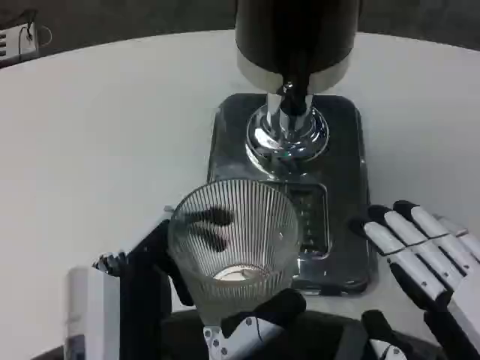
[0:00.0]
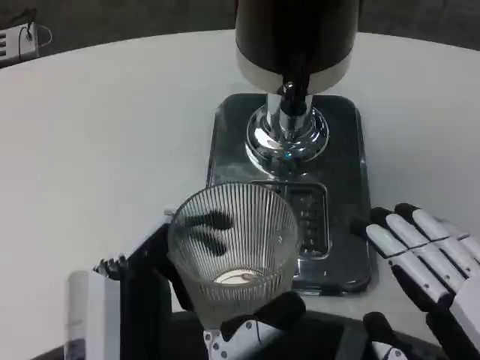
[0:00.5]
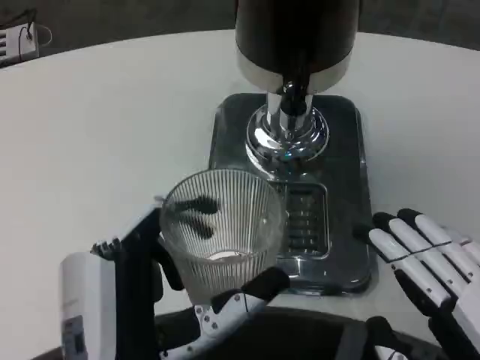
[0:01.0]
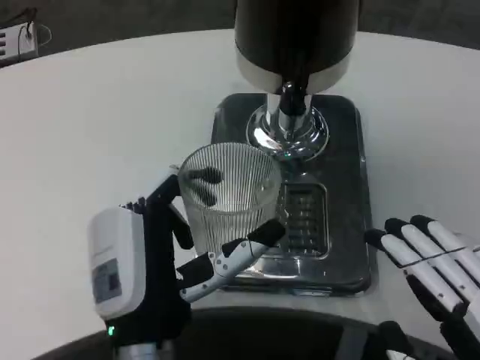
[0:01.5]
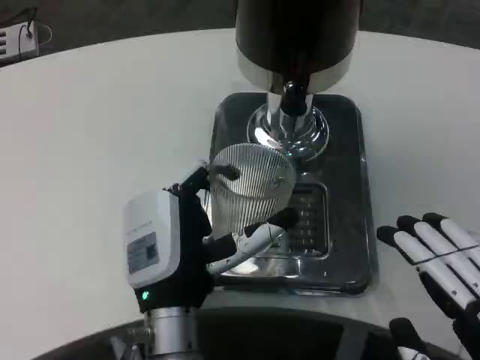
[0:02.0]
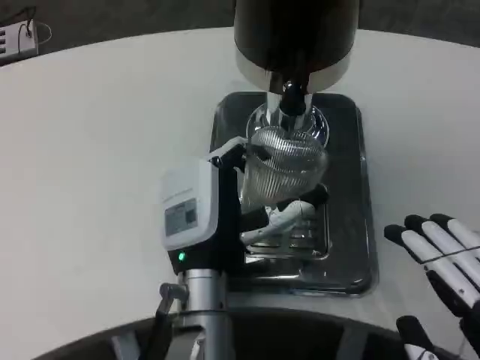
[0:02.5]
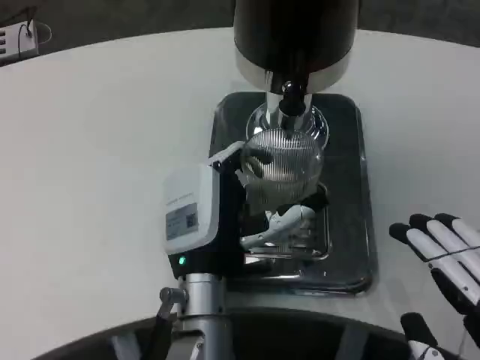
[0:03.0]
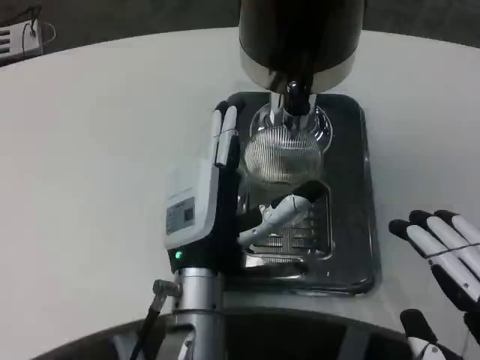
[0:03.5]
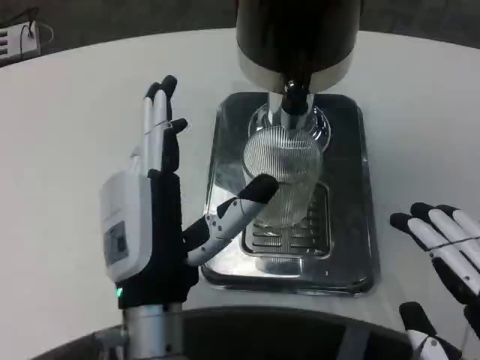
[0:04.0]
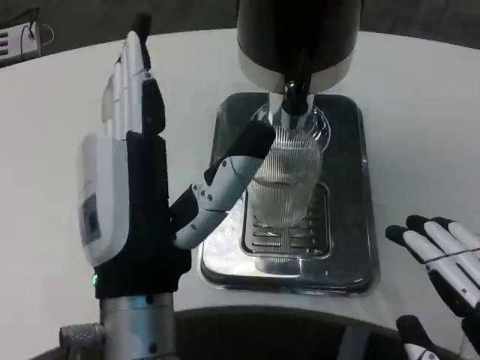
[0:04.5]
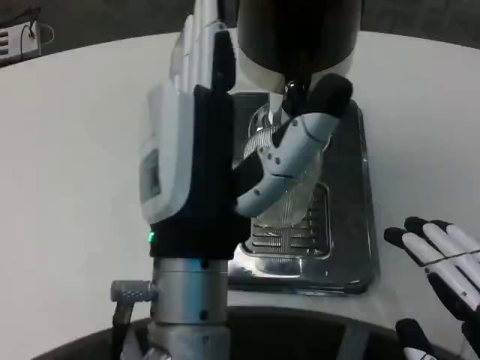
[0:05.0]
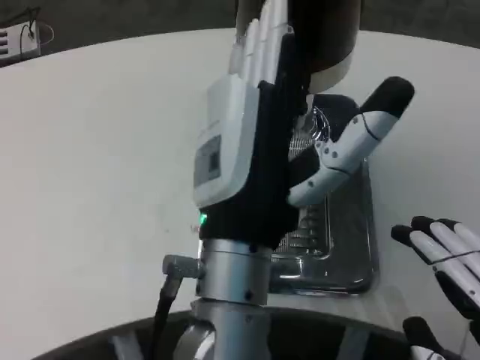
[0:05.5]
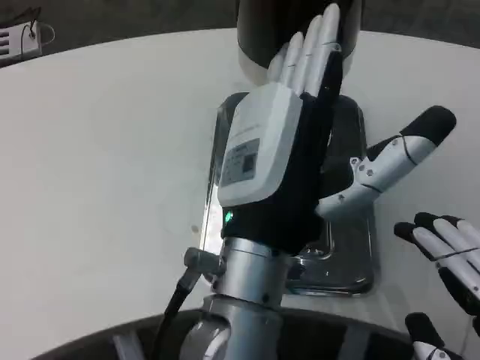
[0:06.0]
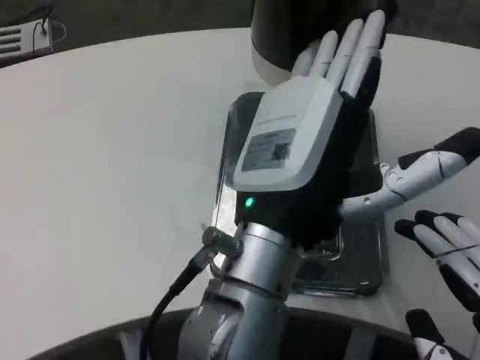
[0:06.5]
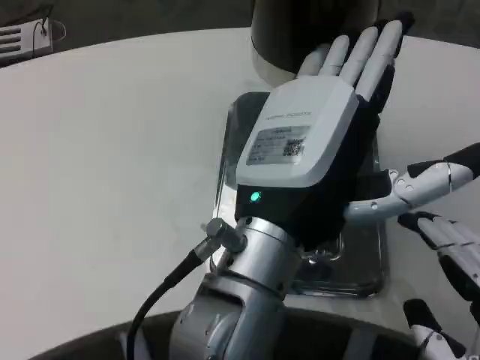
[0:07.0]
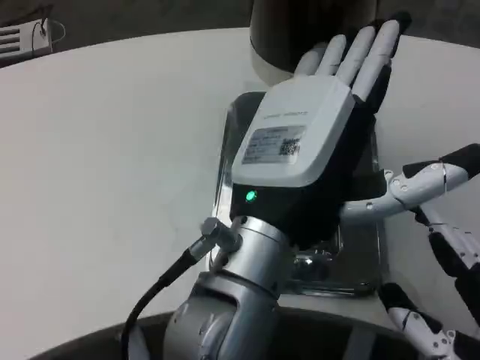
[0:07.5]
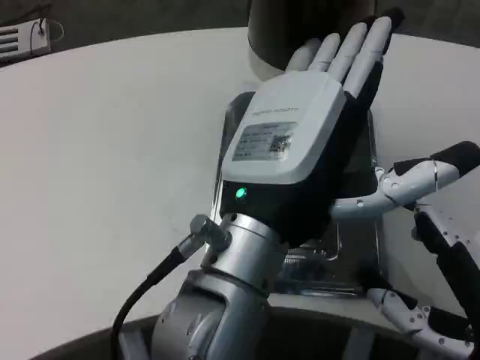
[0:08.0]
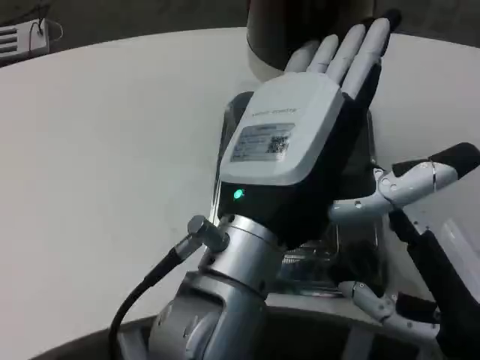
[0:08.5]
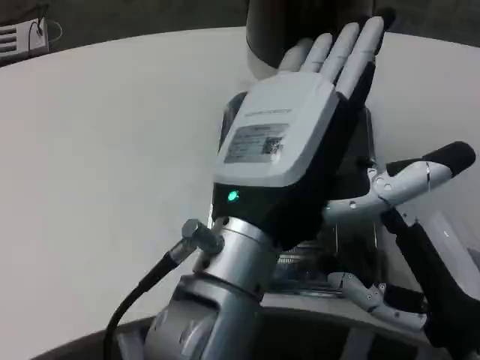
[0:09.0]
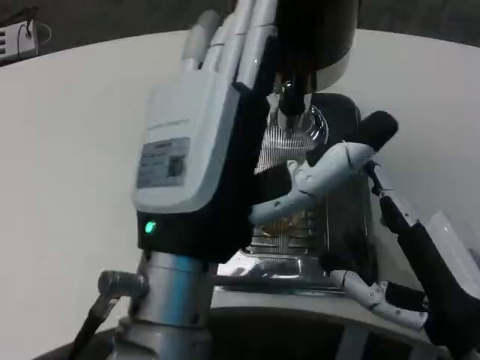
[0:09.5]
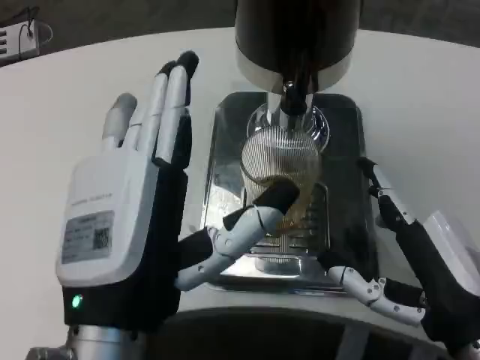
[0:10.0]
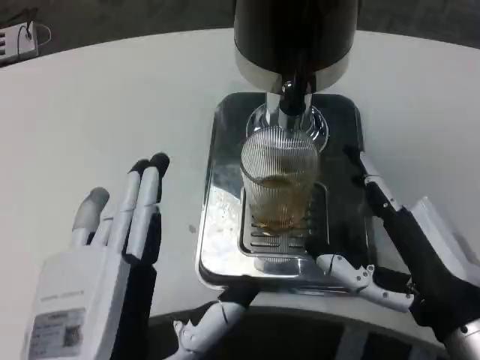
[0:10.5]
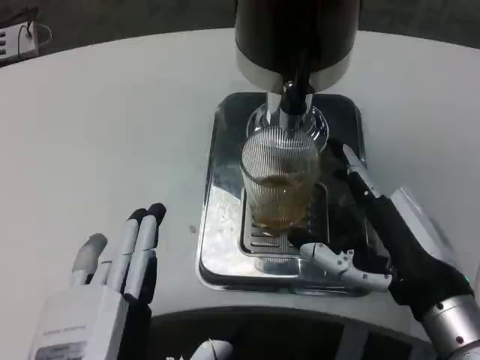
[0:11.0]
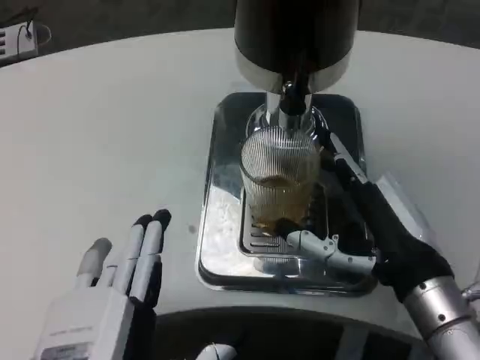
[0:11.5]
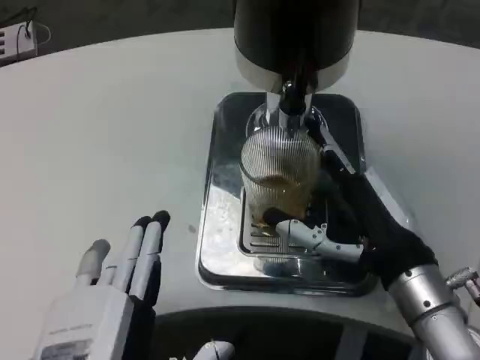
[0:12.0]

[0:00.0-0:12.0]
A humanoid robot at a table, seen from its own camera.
Task of the whole recording: Grasp the cup under the faucet to collect the drink, then remove the cup.
0:00.0 to 0:02.0: The left hand shifts roughly 15 cm forward.
0:04.0 to 0:06.0: The left hand goes about 10 cm upward and to the right.
0:06.0 to 0:08.0: The right hand goes approximately 5 cm forward.
0:08.0 to 0:10.0: The left hand travels to the left and downward by roughly 10 cm.
0:10.0 to 0:12.0: The left hand goes approximately 5 cm downward. The right hand goes roughly 5 cm forward.

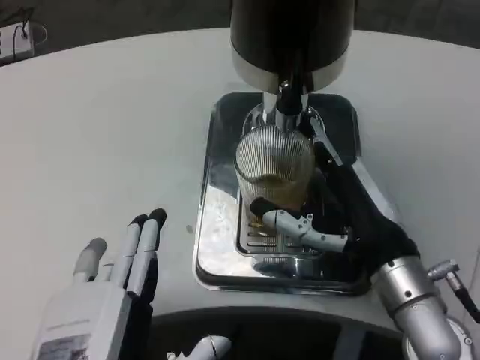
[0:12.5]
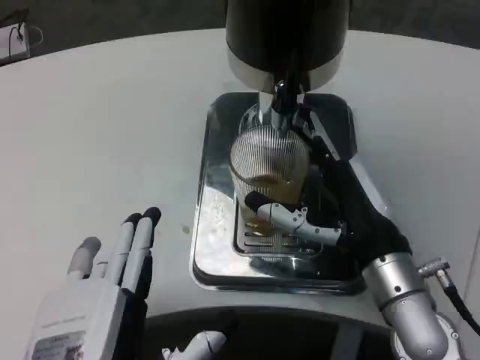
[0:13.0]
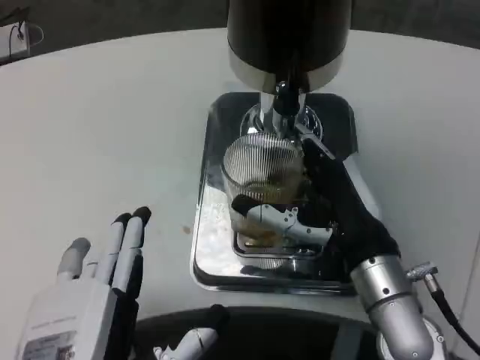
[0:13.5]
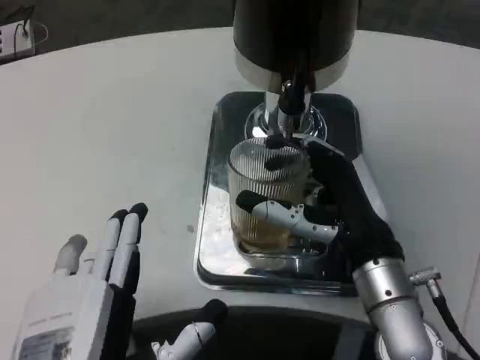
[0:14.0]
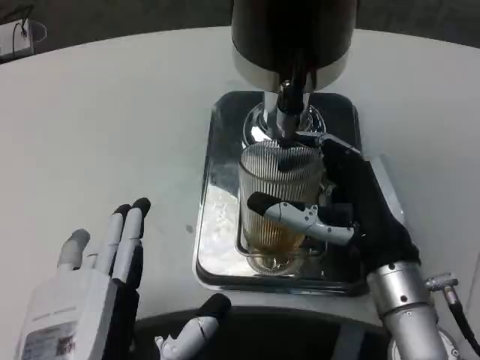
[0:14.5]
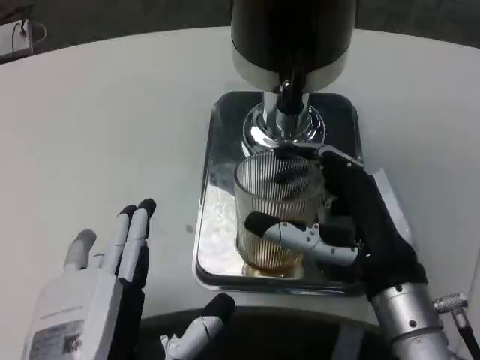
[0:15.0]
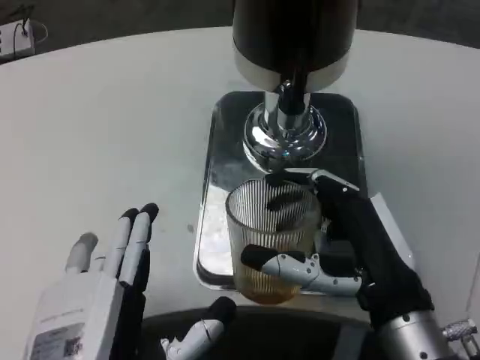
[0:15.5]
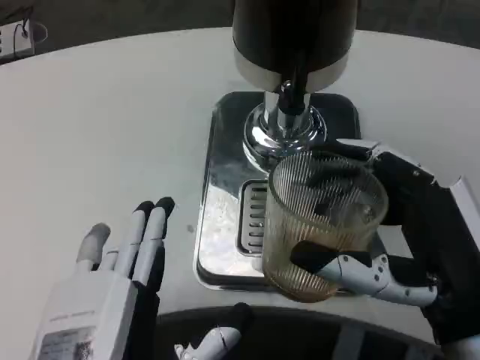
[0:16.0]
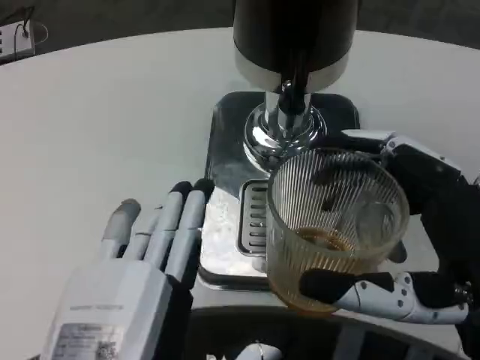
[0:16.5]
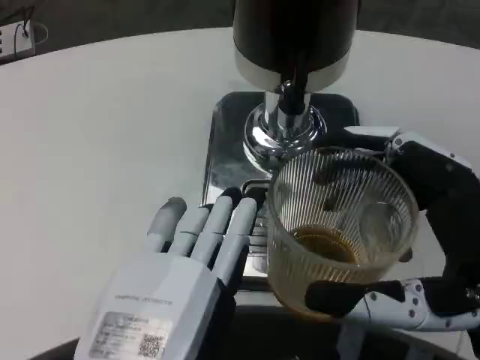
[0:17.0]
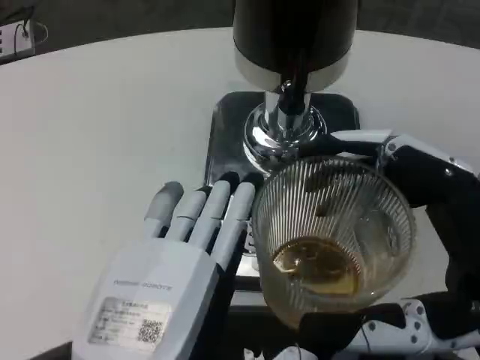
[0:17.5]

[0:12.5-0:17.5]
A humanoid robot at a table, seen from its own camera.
Task of the whole recording: Grasp the cup under the faucet to collect the drink, then remove the cup.
0:12.5 to 0:15.0: There are only small adjustments of the hands.
0:15.0 to 0:17.5: The right hand travels backward and to the right by approximately 10 cm, while the left hand ends up some 5 cm from where it was.

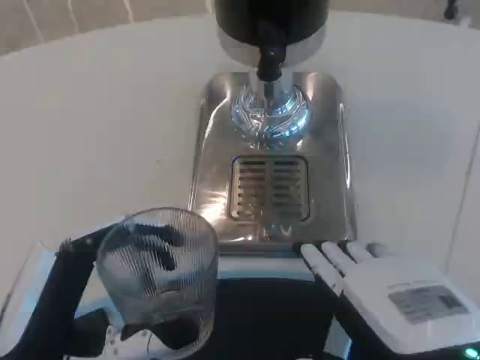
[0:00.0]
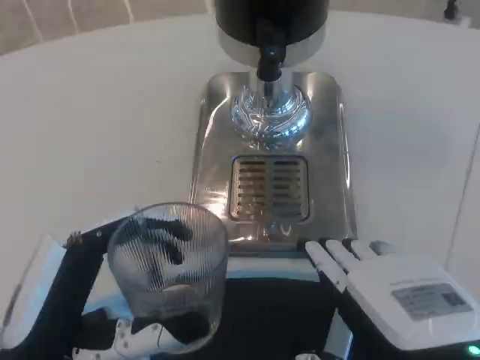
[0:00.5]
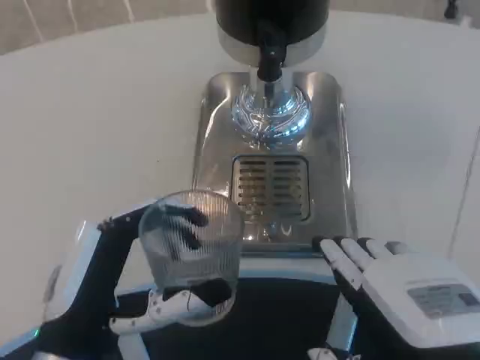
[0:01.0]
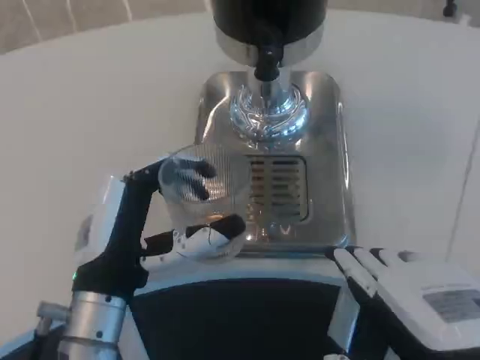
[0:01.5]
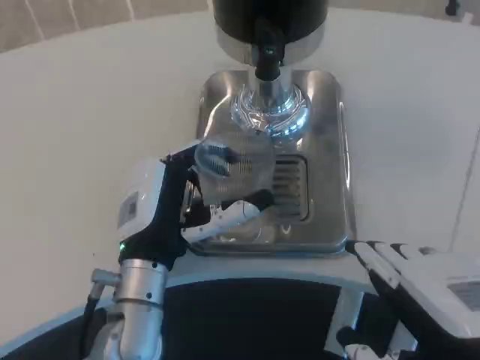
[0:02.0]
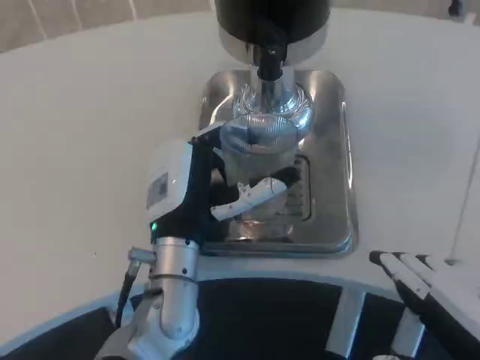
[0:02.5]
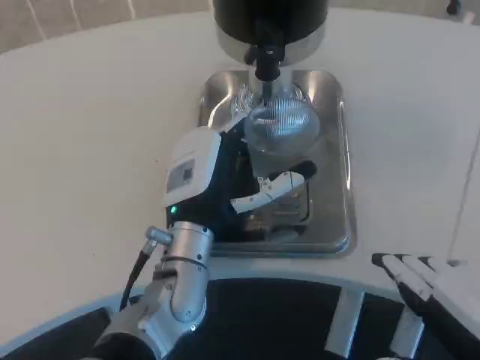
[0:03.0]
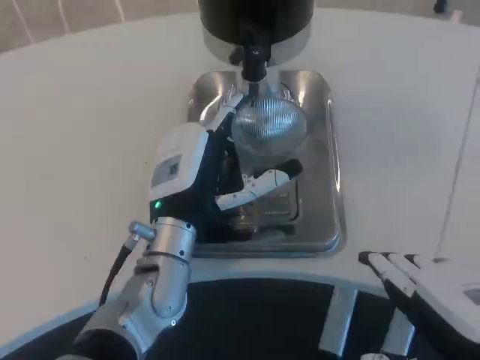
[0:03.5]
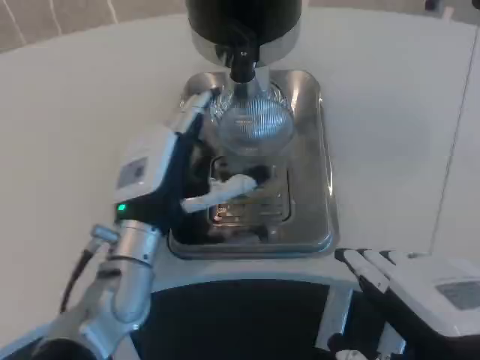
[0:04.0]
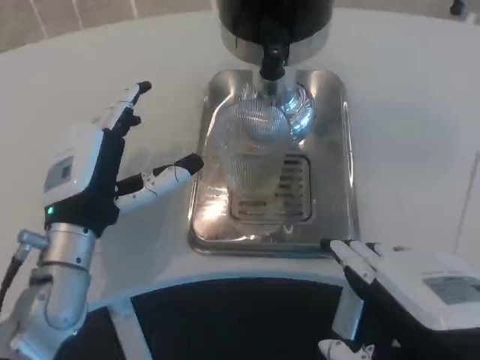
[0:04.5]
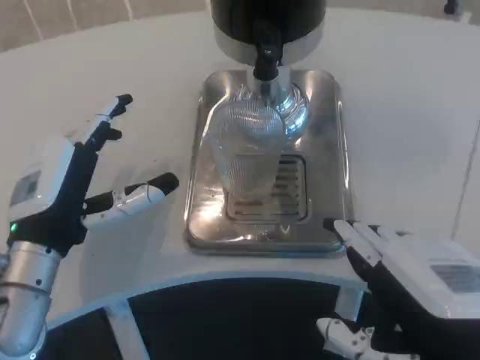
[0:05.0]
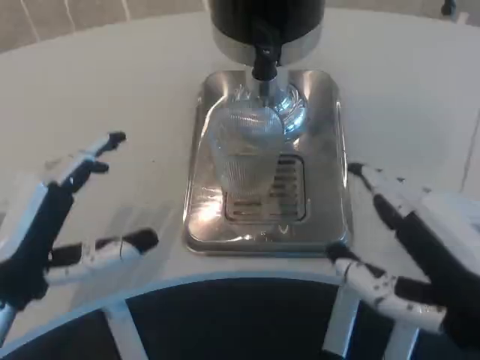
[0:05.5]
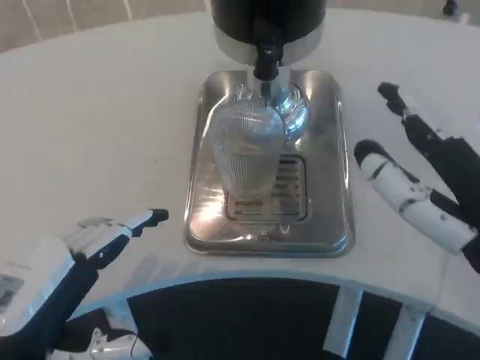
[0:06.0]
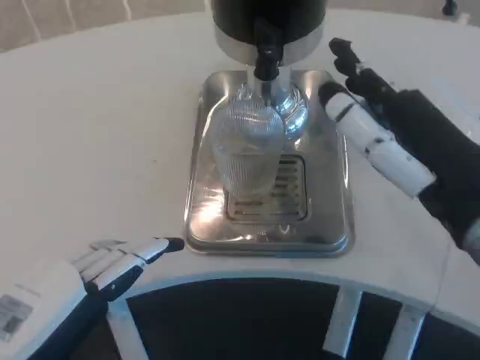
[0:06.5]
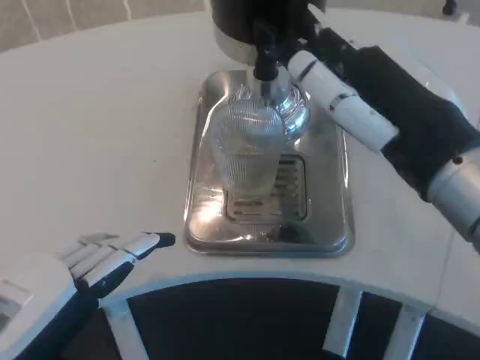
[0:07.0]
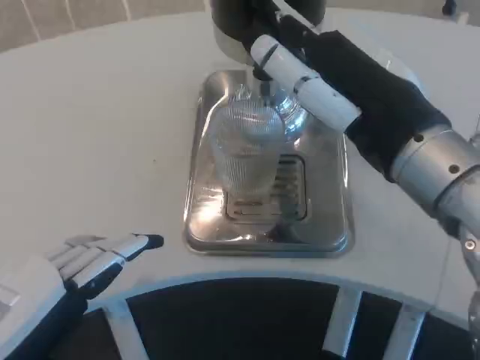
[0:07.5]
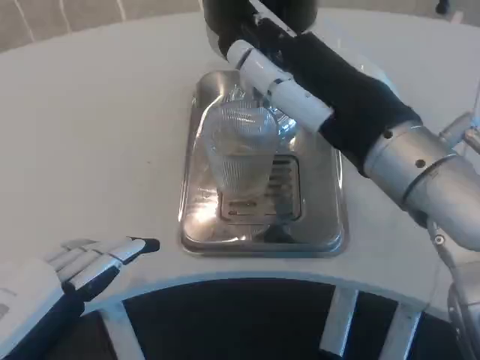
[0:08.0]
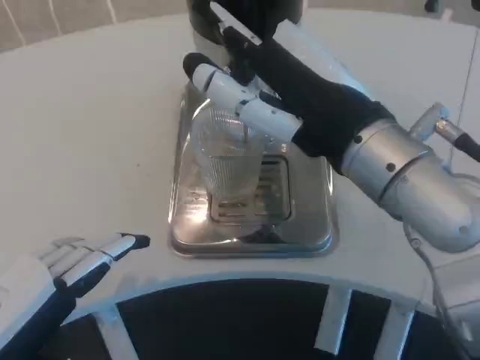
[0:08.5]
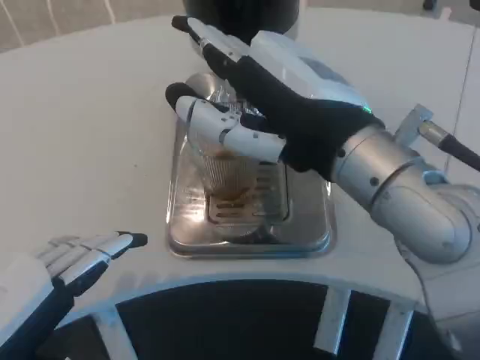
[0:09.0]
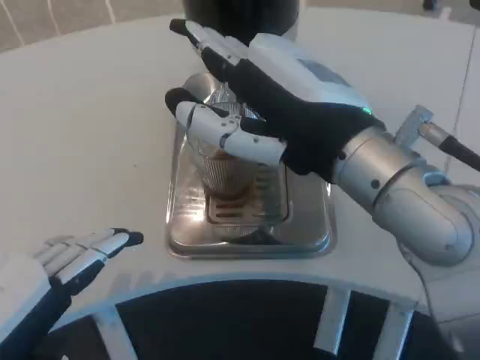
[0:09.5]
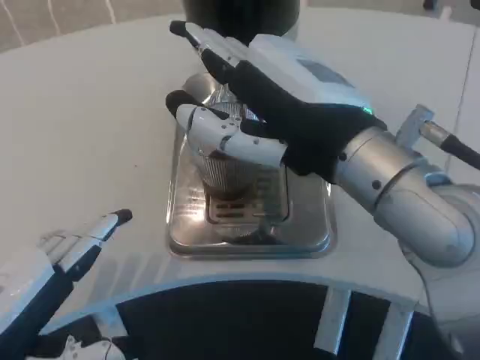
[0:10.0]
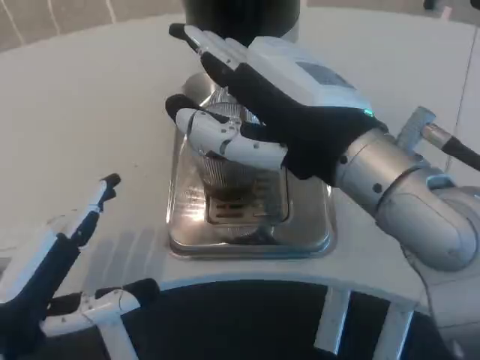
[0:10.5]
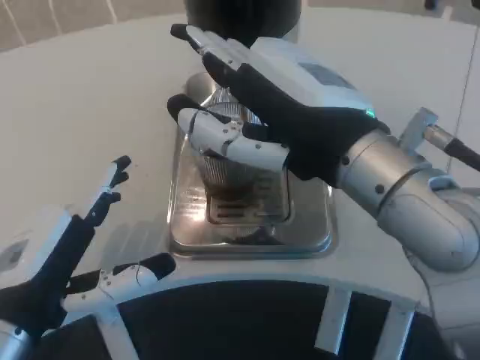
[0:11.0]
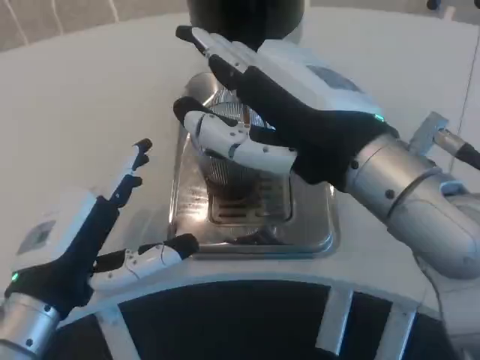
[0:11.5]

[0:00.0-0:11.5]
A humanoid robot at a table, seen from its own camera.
Task of the whole recording: Grasp the cup under the faucet to collect the drink, then remove the cup.
0:00.0 to 0:02.0: The left hand heads forward and to the right, covering about 15 cm.
0:04.0 to 0:06.0: The left hand heads backward and to the left, covering roughly 20 cm.
0:06.0 to 0:07.5: The right hand goes roughly 10 cm forward.
0:09.5 to 0:11.5: The left hand goes about 10 cm forward and to the right.
